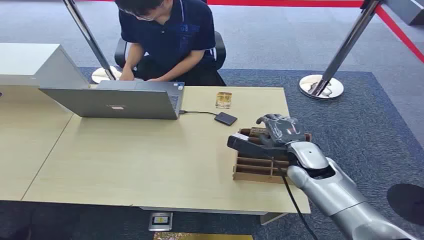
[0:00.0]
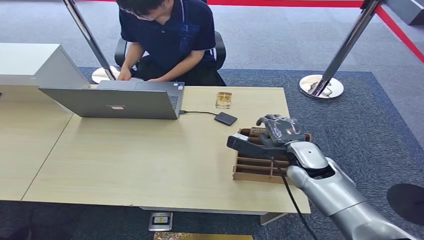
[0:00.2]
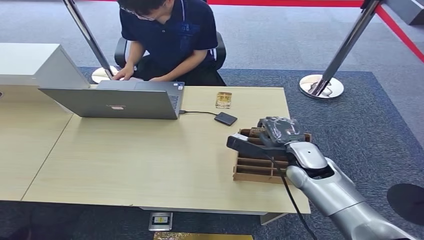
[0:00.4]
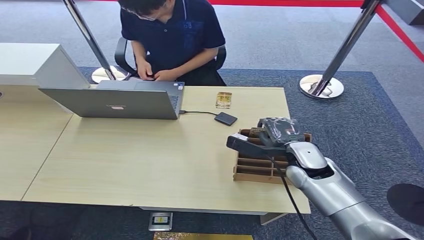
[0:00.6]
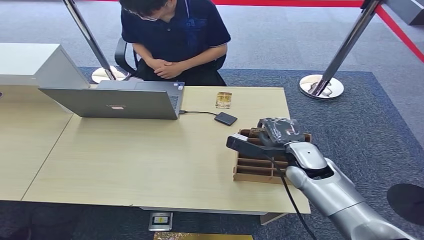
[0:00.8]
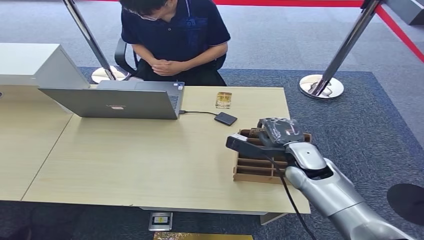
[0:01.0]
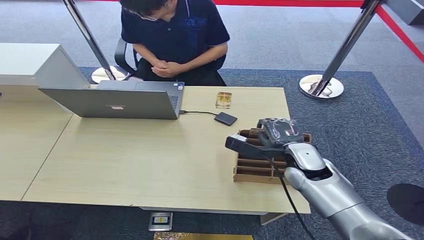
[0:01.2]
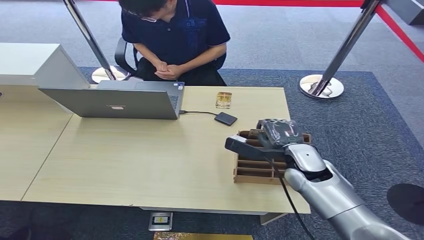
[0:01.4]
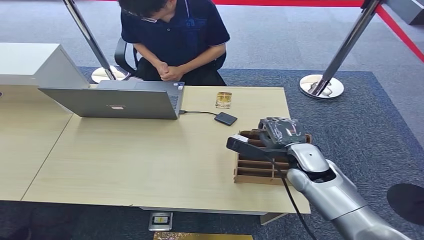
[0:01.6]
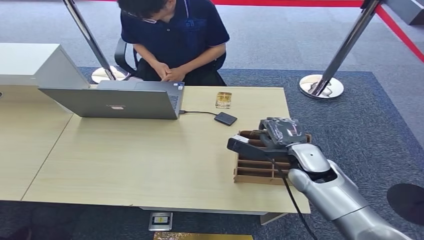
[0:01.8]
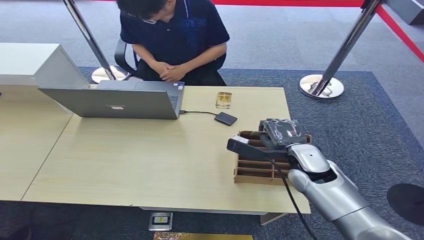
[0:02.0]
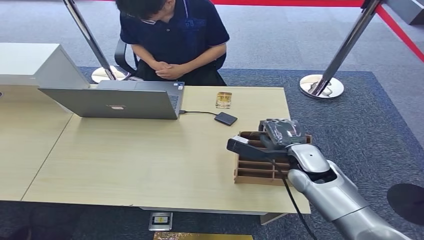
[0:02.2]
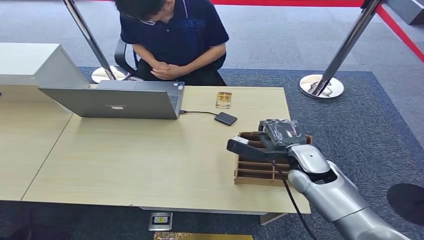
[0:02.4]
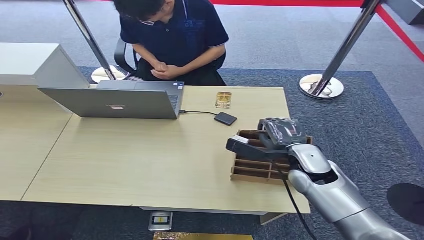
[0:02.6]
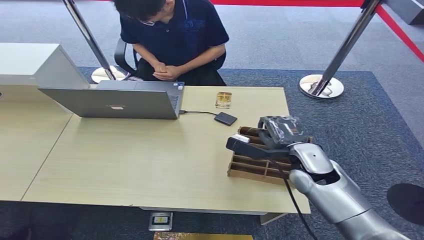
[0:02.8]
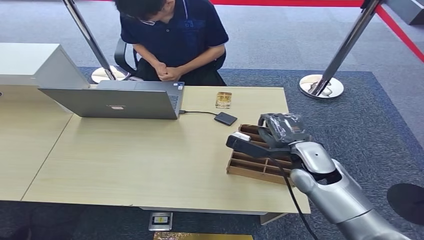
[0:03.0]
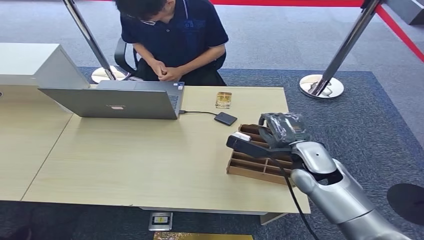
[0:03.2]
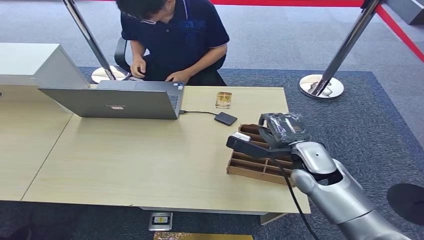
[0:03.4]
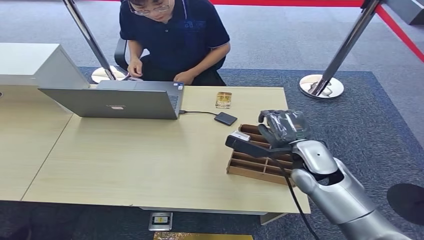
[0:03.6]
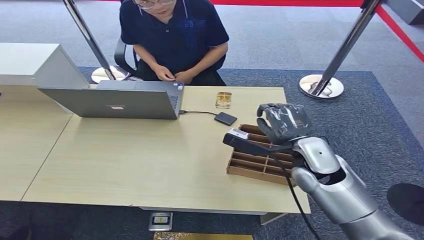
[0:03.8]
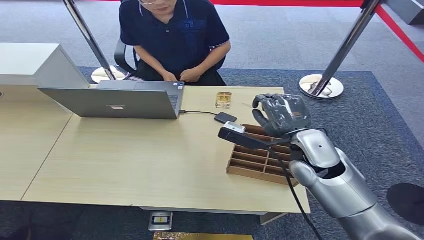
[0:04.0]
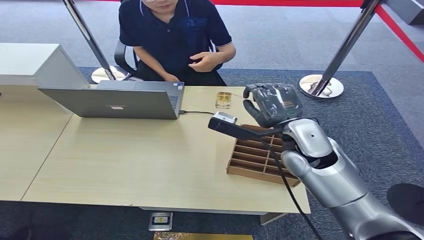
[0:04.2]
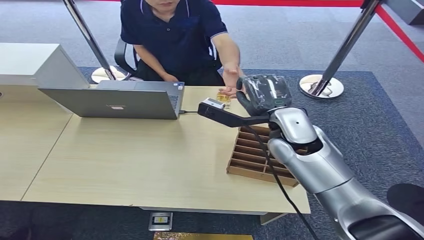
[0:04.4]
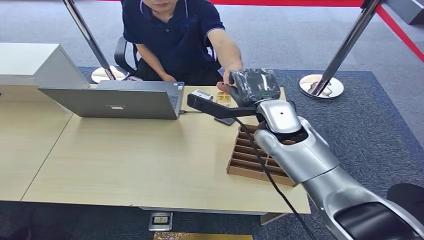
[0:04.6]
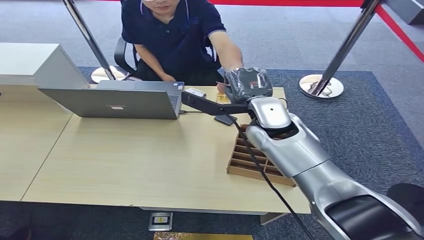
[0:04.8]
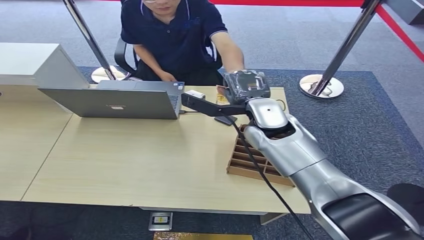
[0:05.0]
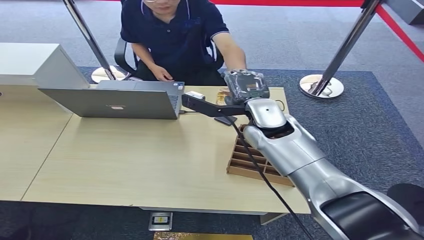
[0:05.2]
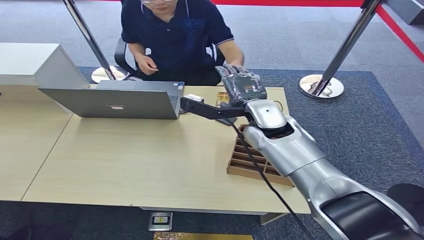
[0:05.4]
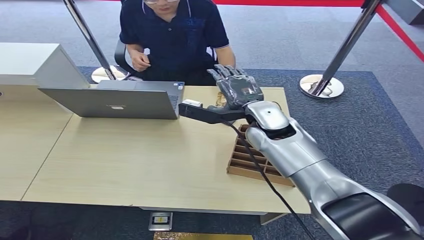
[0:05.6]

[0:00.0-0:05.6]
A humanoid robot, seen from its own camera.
Step, 0:00.0 to 0:03.6: Pick up the key card from the card box.
Step, 0:04.0 to 0:05.6: Hand the key card to the target.
0:01.4 to 0:02.8: The hands stay close to where they were, moving slightly.
0:02.8 to 0:04.2: The right hand moves upward, roughly 10 cm.
0:04.2 to 0:05.6: The right hand heads forward and to the left, covering about 10 cm.
